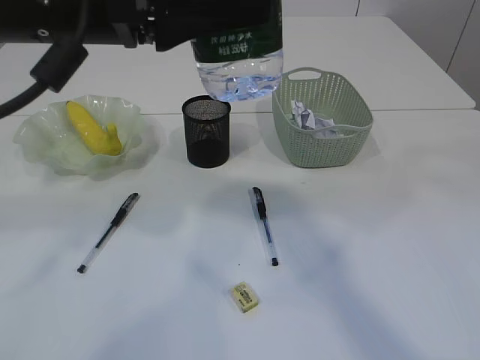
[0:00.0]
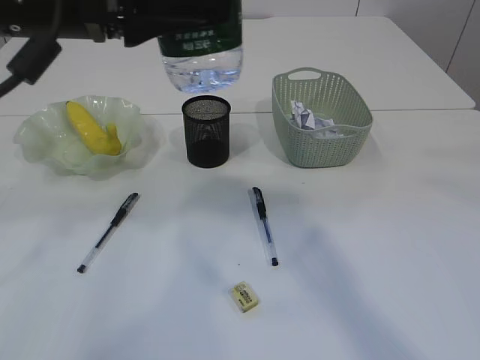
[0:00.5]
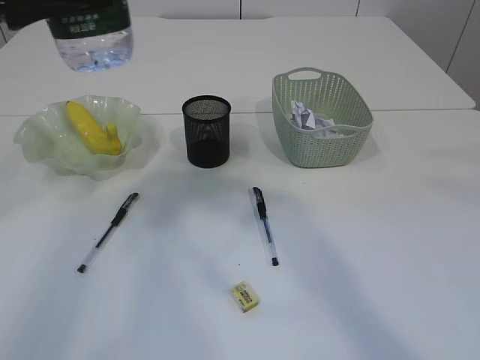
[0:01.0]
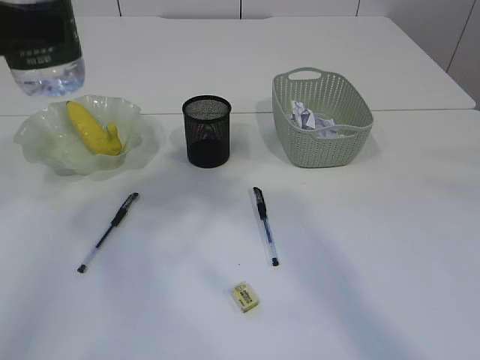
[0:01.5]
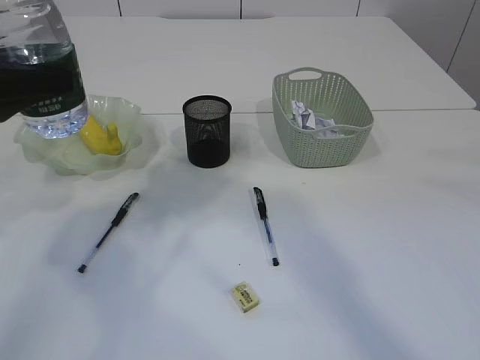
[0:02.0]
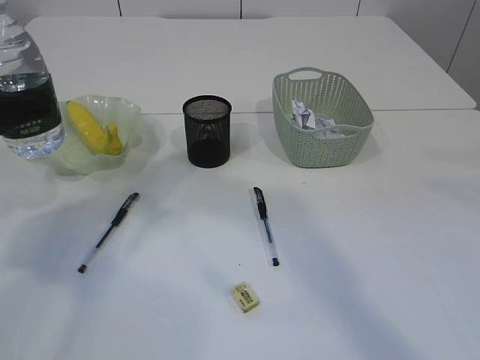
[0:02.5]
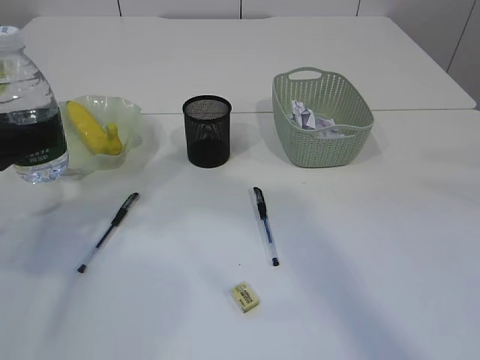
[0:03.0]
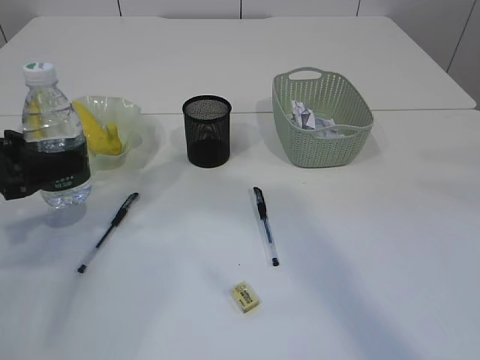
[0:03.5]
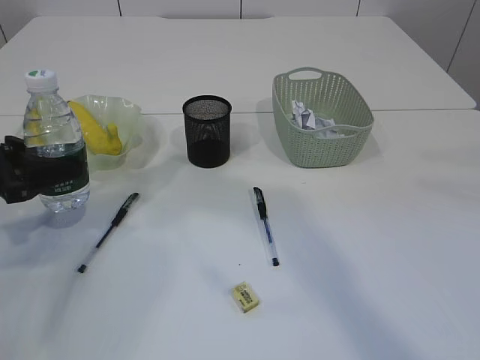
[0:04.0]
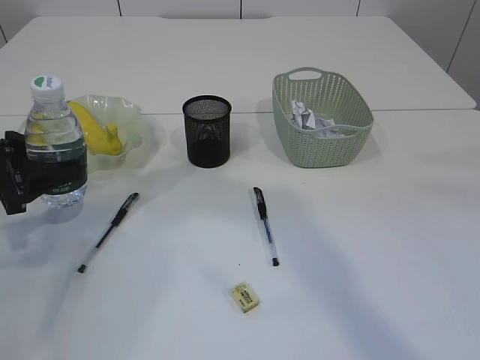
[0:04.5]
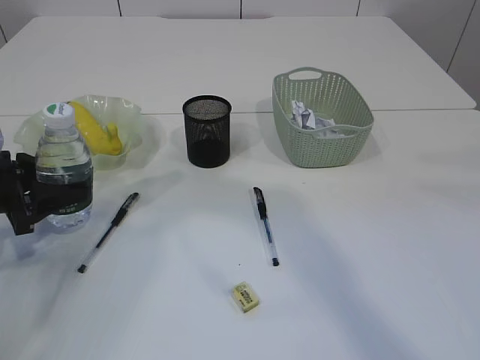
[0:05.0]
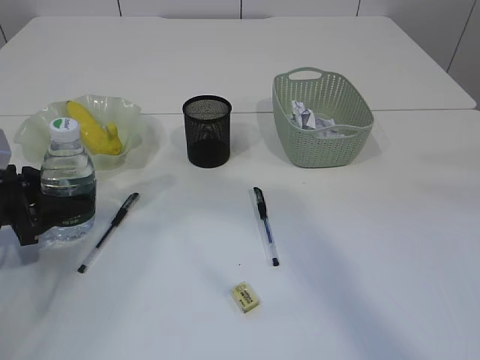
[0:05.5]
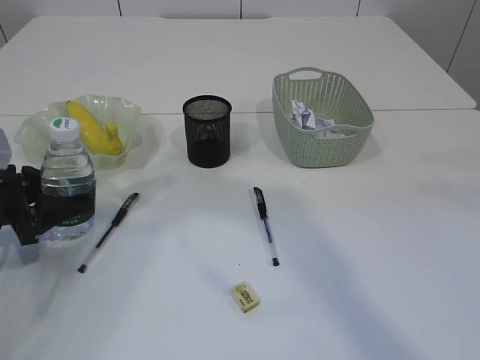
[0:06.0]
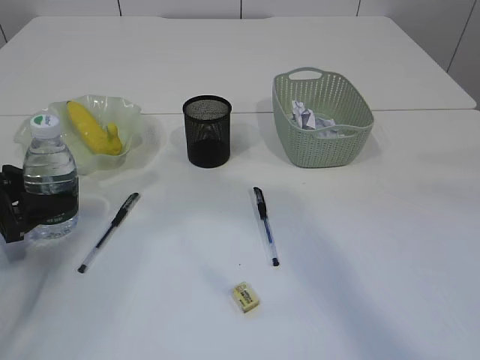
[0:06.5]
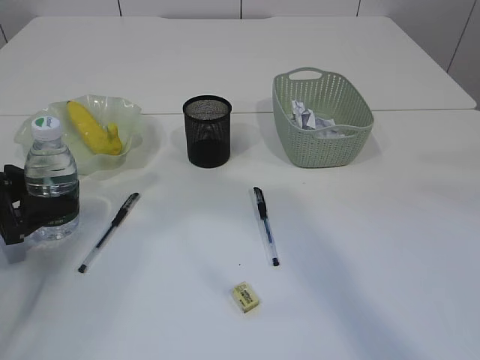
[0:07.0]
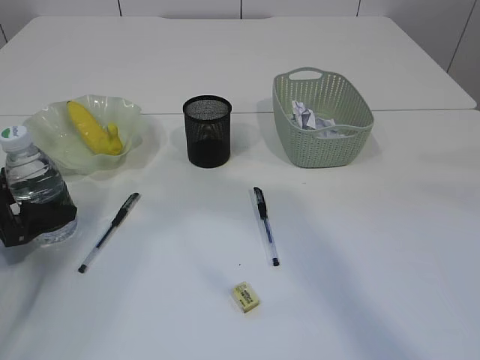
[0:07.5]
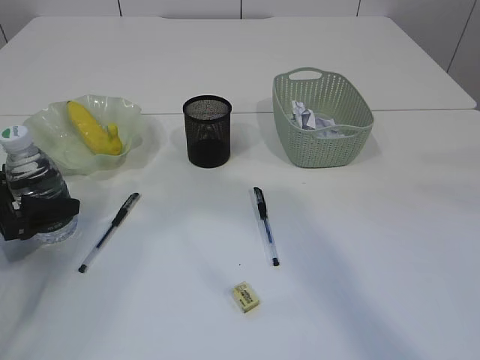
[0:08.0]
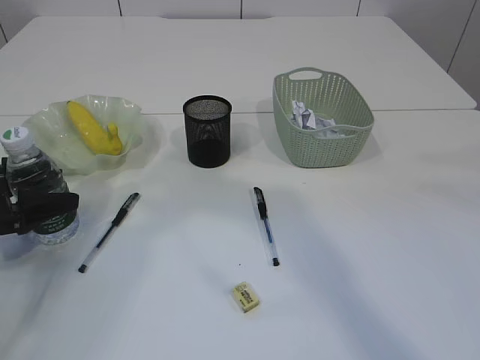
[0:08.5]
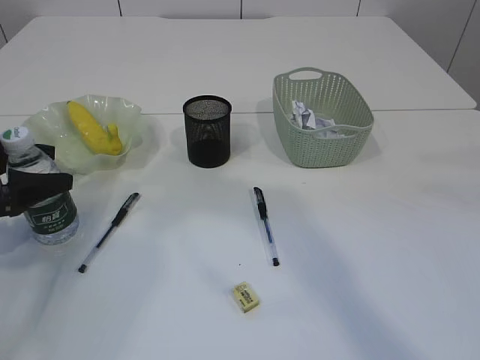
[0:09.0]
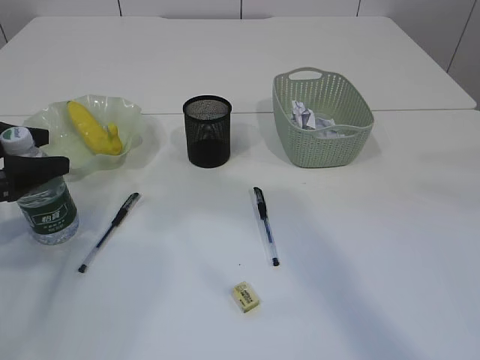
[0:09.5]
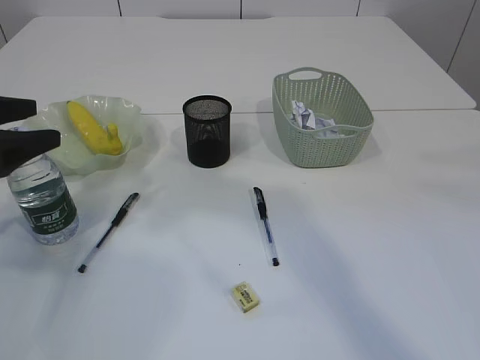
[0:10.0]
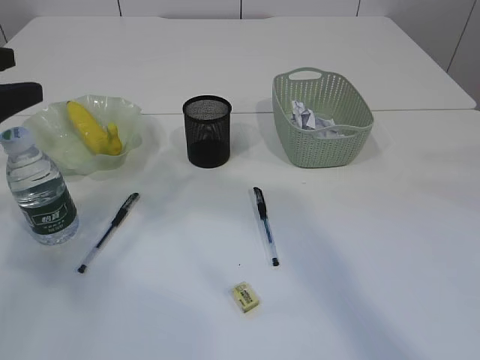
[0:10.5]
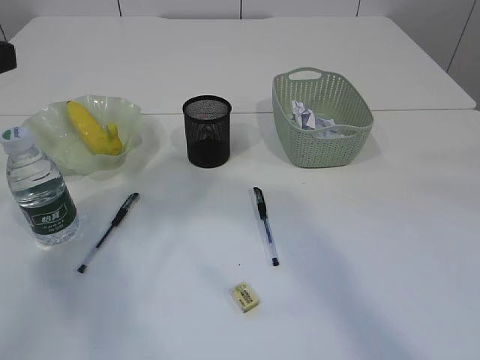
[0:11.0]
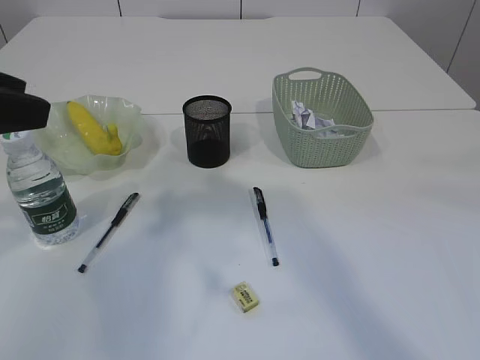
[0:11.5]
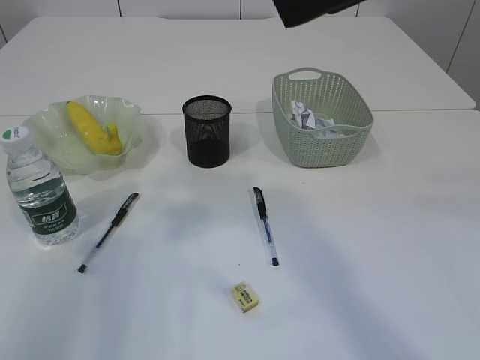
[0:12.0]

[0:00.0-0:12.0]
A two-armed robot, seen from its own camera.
Step, 0:01.0 to 0:10.0: Place the bottle.
0:00.0 to 0:02.0: The left gripper moves to the left and downward, roughly 20 cm.
0:02.0 to 0:04.0: The left gripper travels downward by some 15 cm.
0:04.0 to 0:06.0: The left gripper is displaced downward by some 5 cm.
0:06.0 to 0:08.0: The left gripper opens up.
0:08.0 to 0:10.0: The left gripper shifts some 10 cm upward.
0:10.0 to 0:12.0: The left gripper heads backward and upward, covering some 20 cm, and closes its fingers.

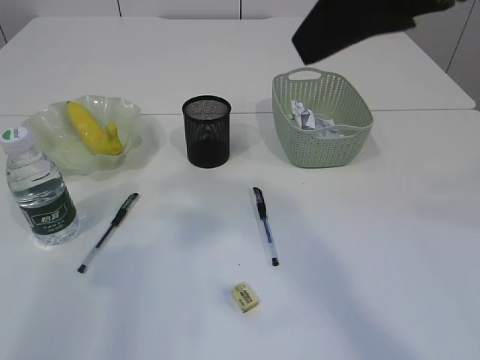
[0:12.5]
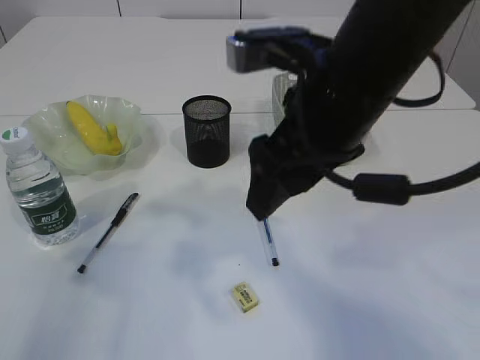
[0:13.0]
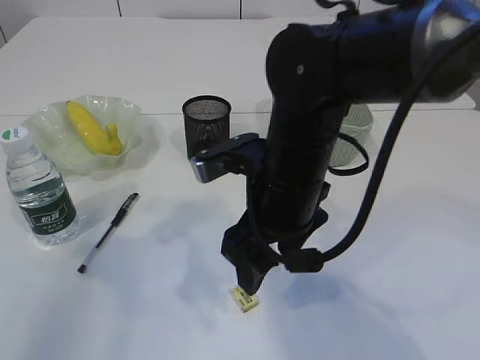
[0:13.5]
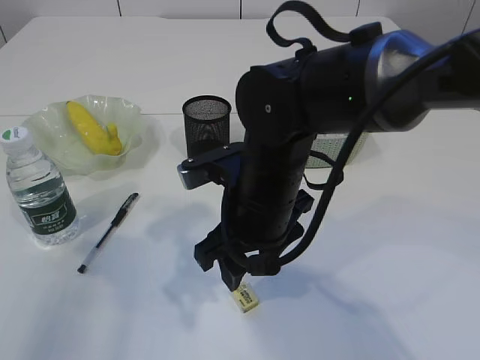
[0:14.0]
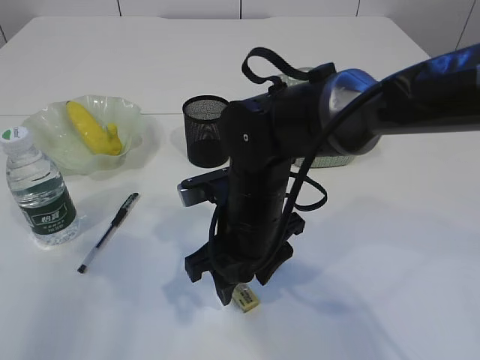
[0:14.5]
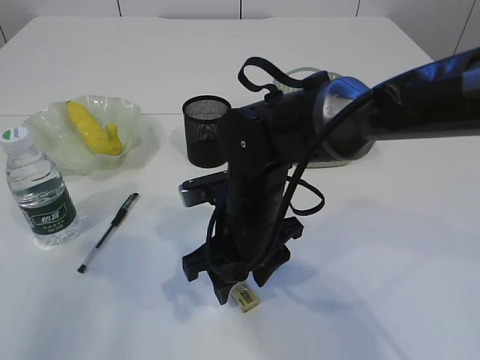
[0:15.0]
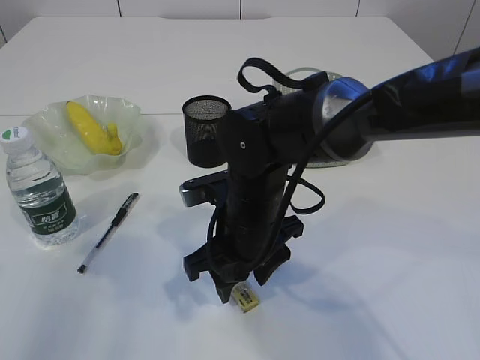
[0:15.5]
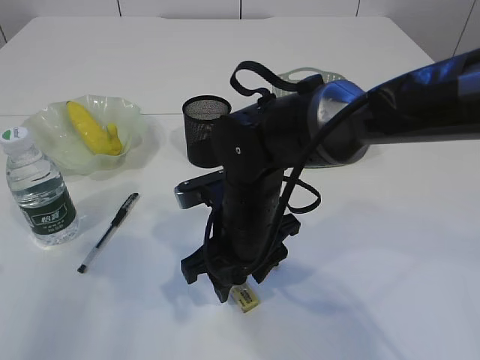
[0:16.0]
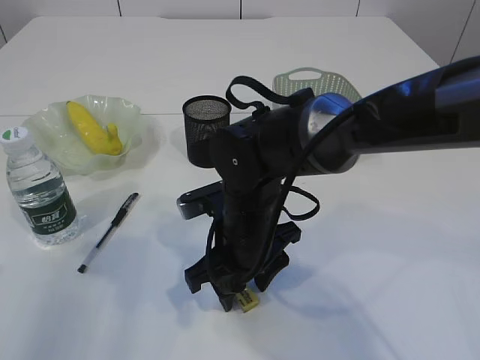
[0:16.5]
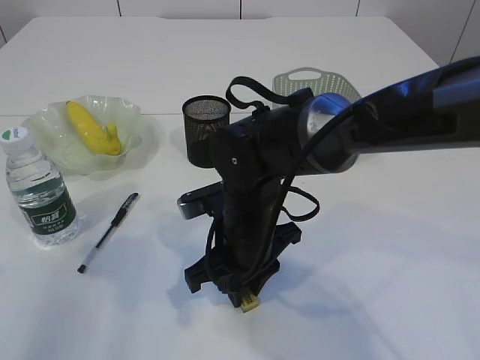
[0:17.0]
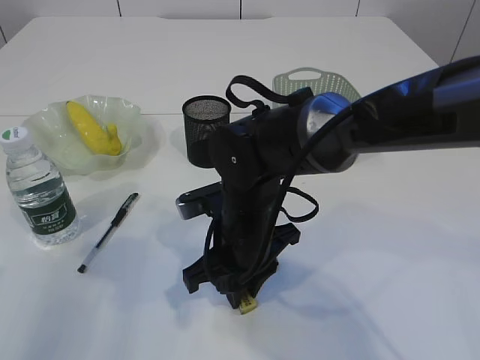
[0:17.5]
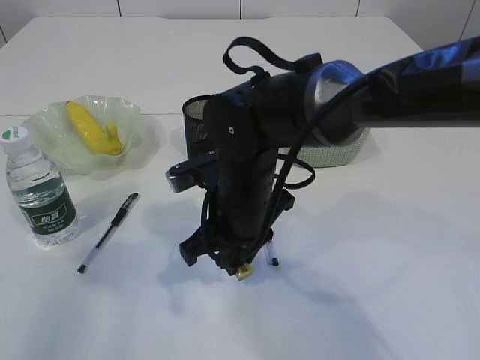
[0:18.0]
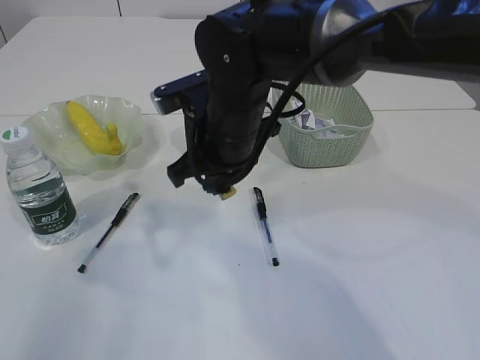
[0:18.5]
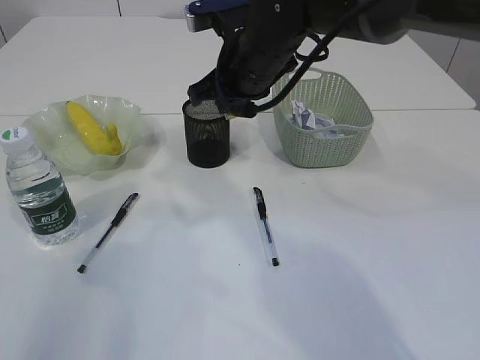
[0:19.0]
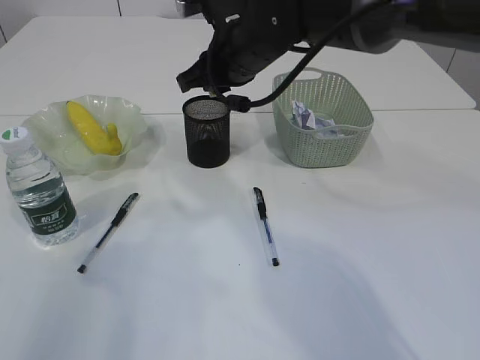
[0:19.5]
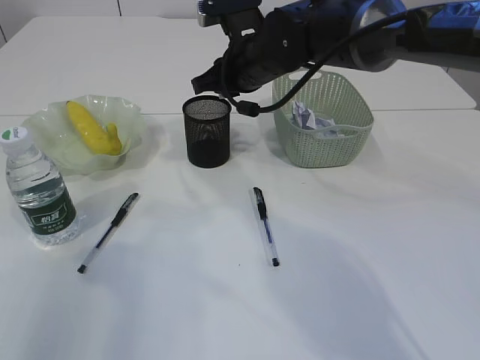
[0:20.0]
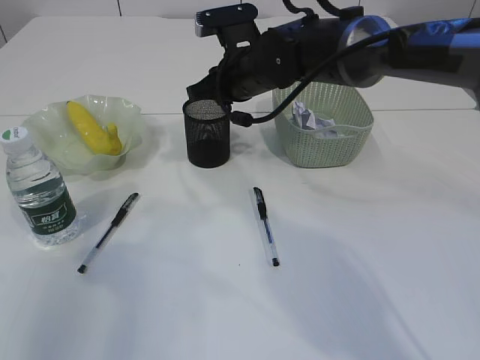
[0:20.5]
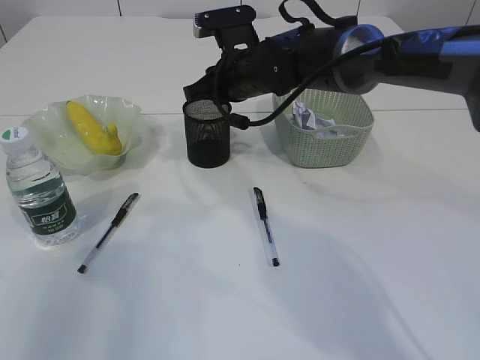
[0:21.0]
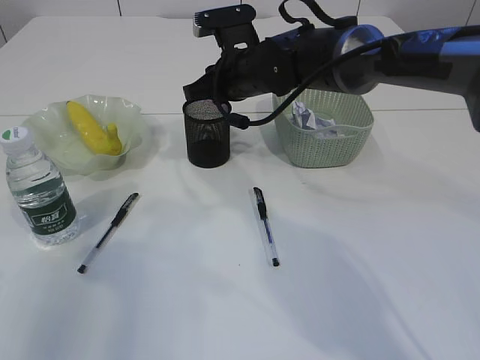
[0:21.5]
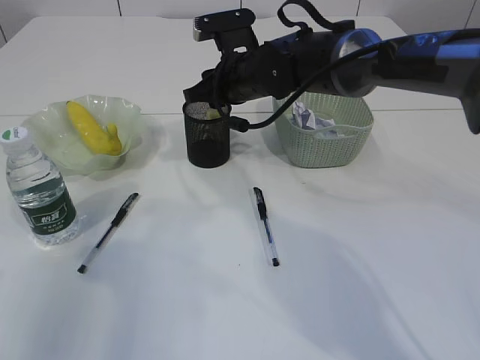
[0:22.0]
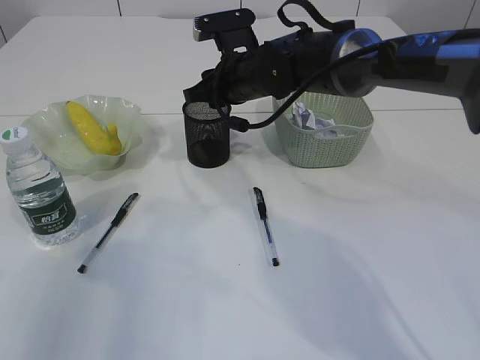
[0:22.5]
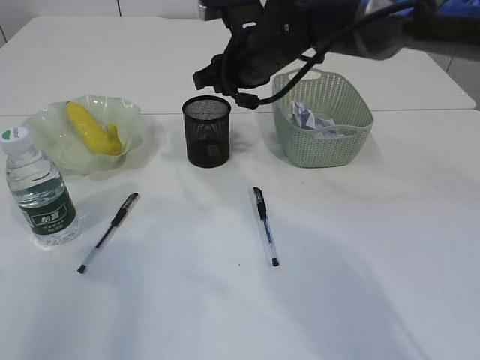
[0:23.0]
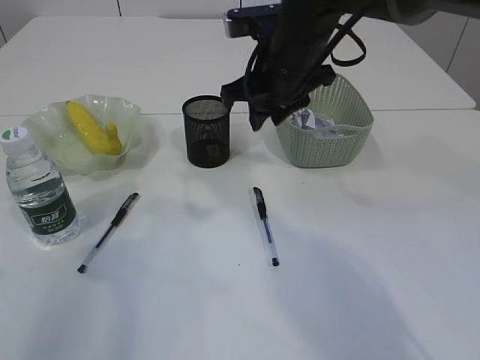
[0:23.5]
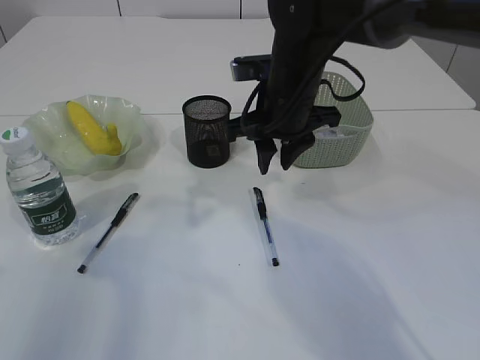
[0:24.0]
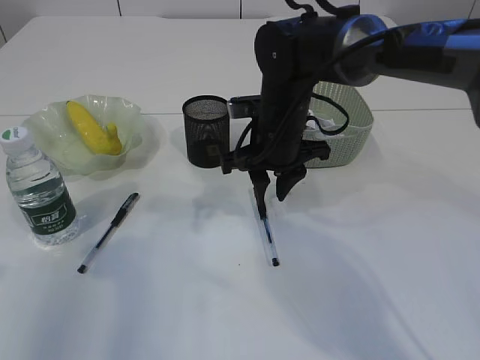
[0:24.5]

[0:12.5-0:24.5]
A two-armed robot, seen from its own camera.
Step, 0:12.5 to 0:18.0: Pick up the eraser.
Step, 0:18.5 to 0:22.5: Place the eraser into the pen holder.
0:12.5 to 0:14.5: The right gripper heads downward and to the left, covering about 30 cm.
0:14.5 to 0:16.5: The grippers make only small movements.
0:16.5 to 0:18.5: The right gripper shifts about 10 cm upward and forward, and closes.
0:18.5 to 0:20.5: The right gripper heads forward, covering approximately 10 cm.
0:20.5 to 0:22.5: Neither gripper changes place.
0:22.5 to 0:24.5: The right gripper shifts approximately 5 cm backward, and travels upward and back again, roughly 5 cm each way.

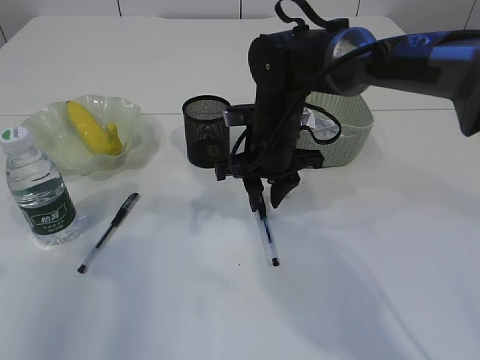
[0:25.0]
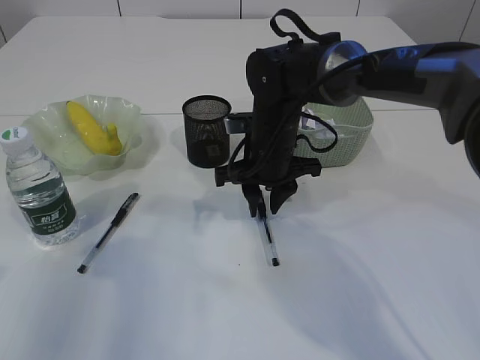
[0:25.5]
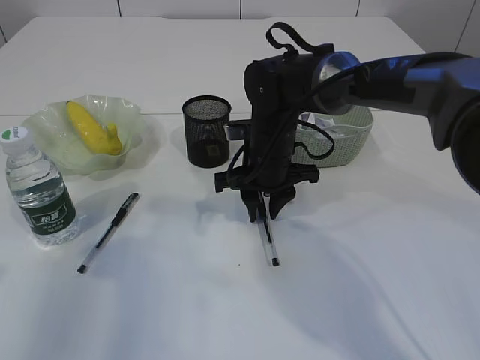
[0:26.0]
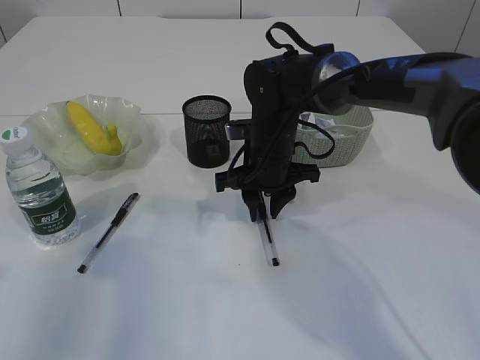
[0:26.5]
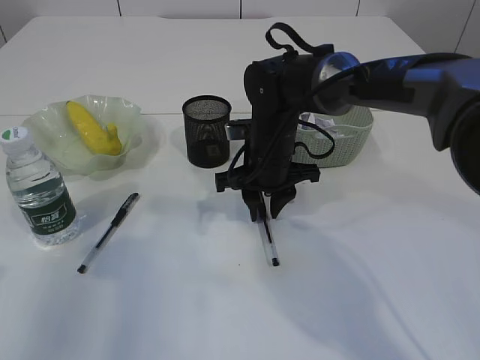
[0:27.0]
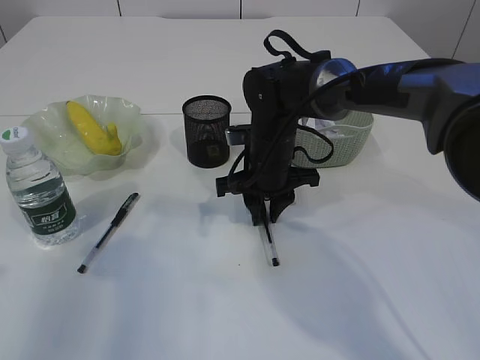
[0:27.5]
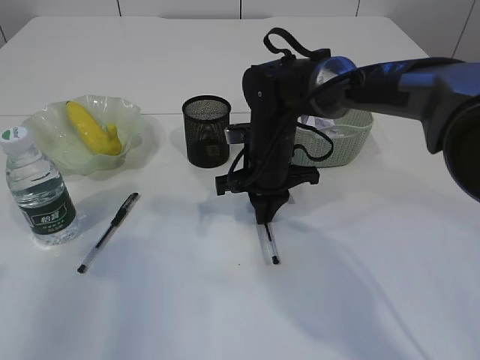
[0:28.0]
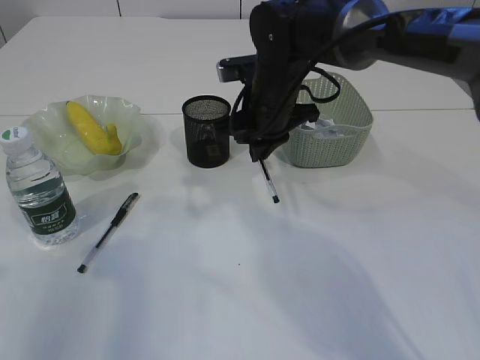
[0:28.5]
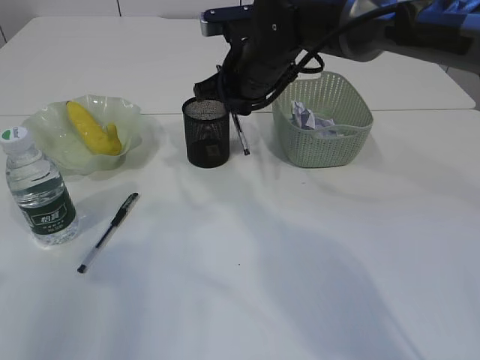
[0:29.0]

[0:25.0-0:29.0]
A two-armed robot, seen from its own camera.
Step, 0:25.0 to 0:28.0: Pick up the pen with right arm.
0:25.0 to 0:27.0: The grippers move only a little.
0:27.0 to 0:29.0: The right gripper goes roughly 10 cm upward, and closes its fingers.
